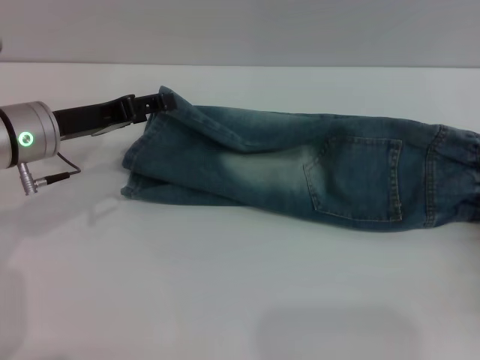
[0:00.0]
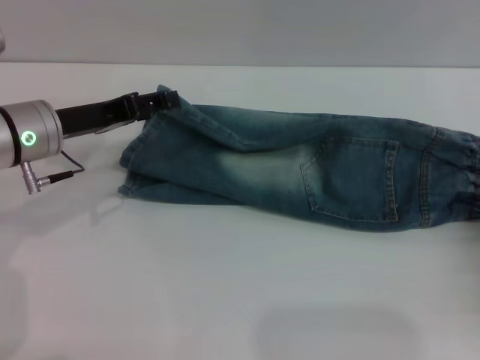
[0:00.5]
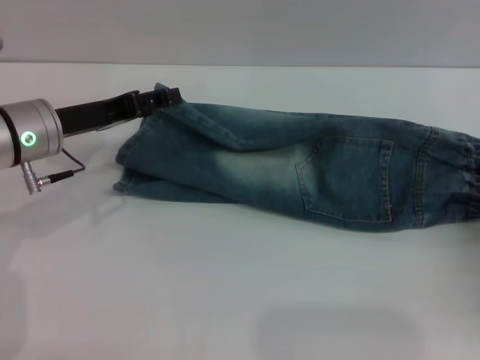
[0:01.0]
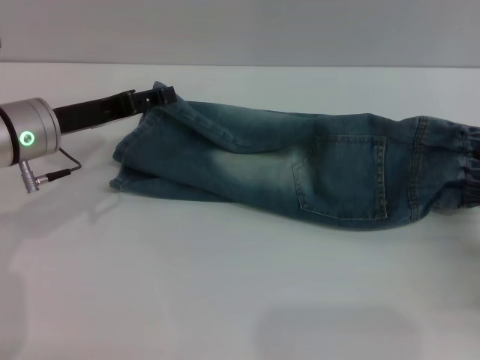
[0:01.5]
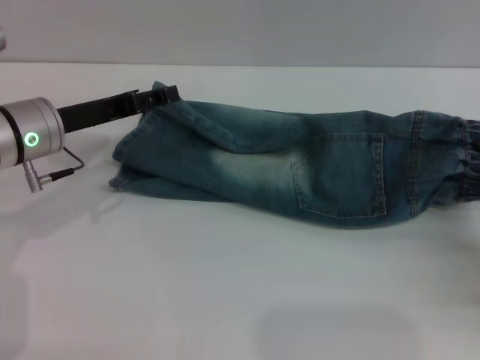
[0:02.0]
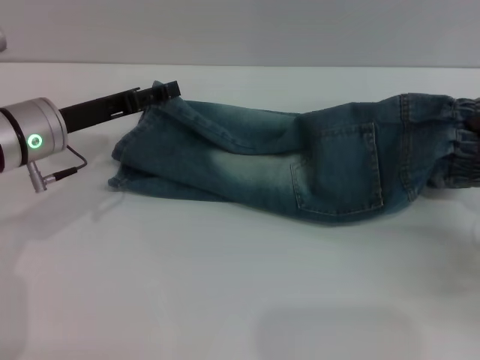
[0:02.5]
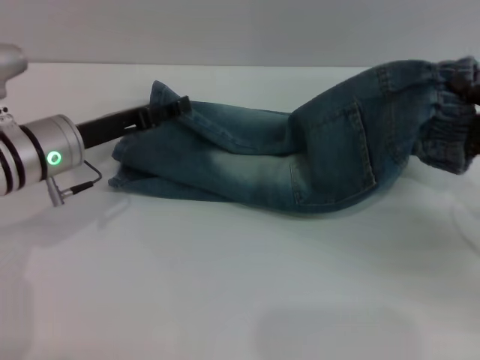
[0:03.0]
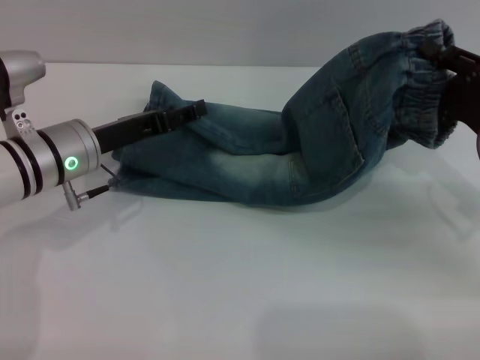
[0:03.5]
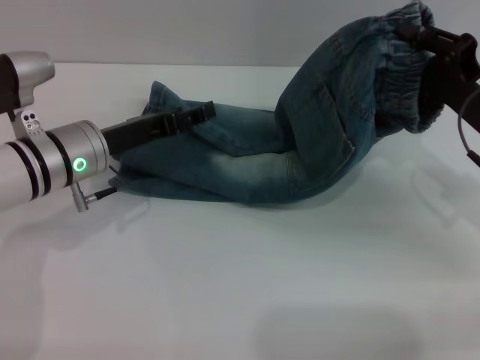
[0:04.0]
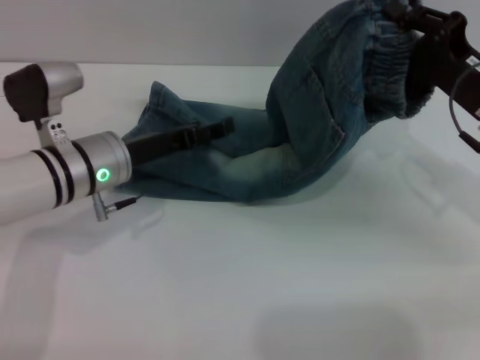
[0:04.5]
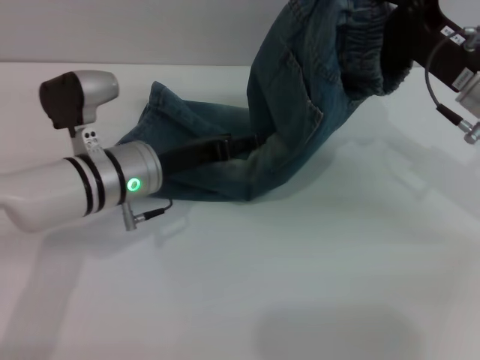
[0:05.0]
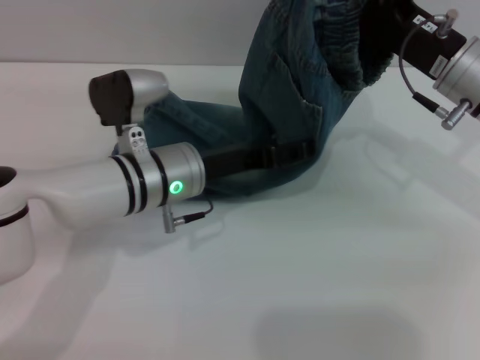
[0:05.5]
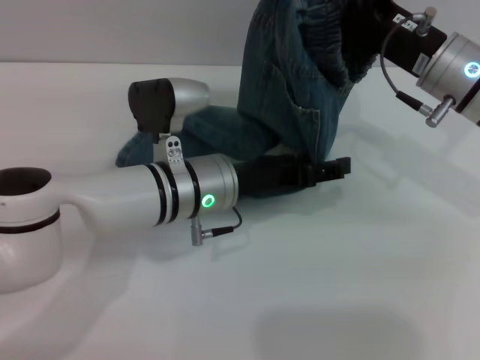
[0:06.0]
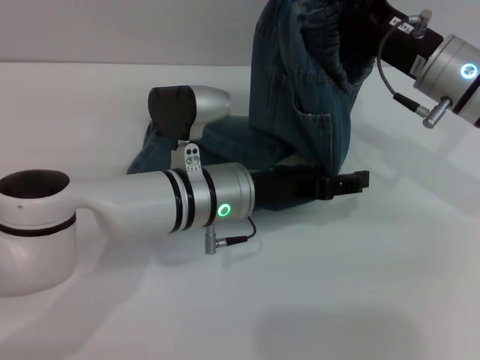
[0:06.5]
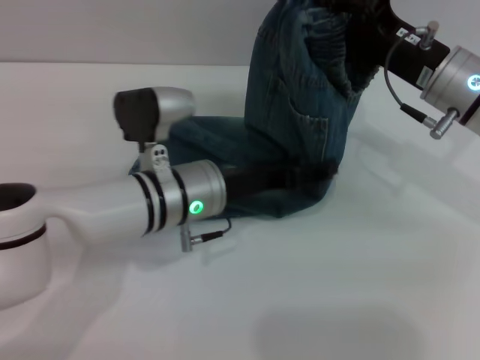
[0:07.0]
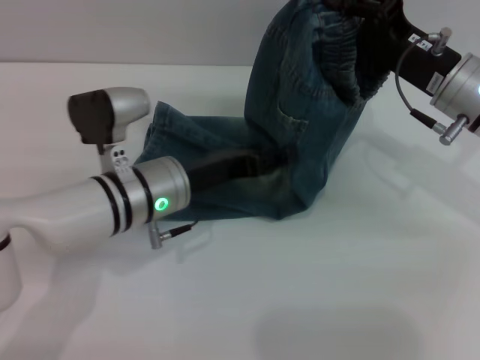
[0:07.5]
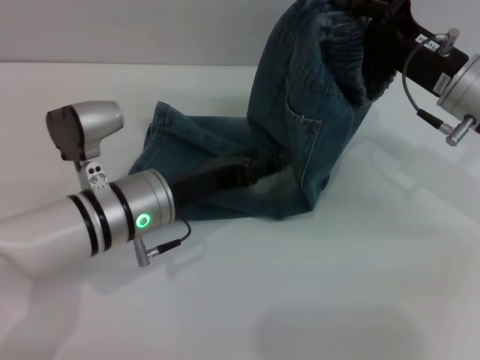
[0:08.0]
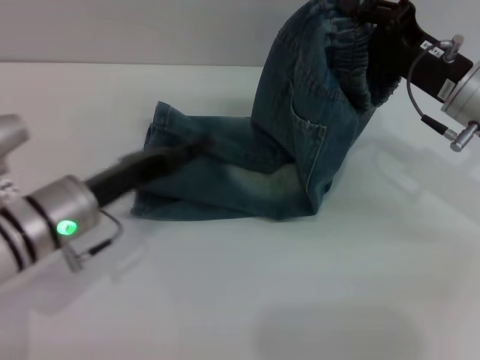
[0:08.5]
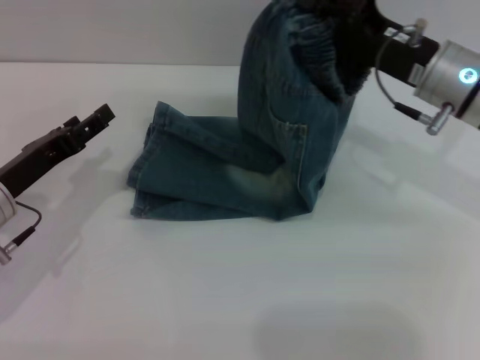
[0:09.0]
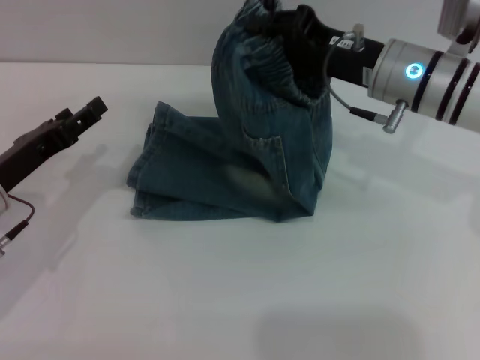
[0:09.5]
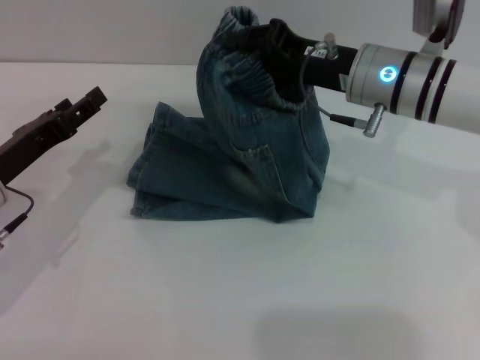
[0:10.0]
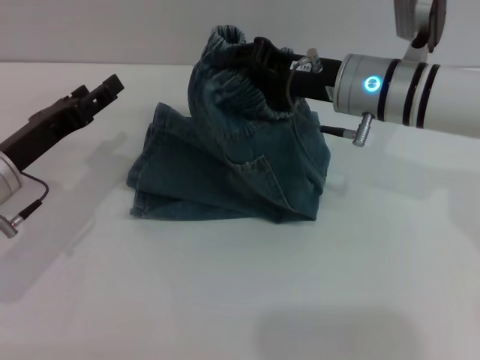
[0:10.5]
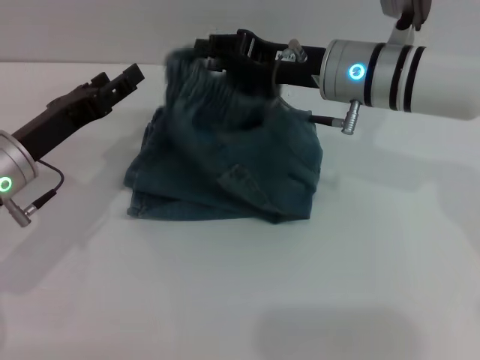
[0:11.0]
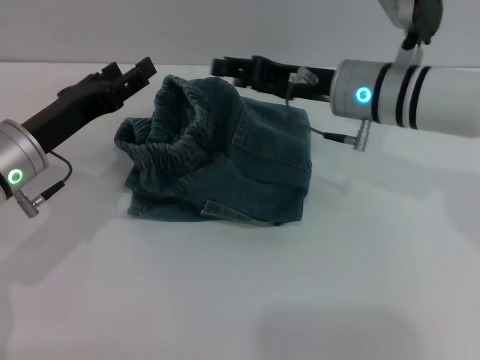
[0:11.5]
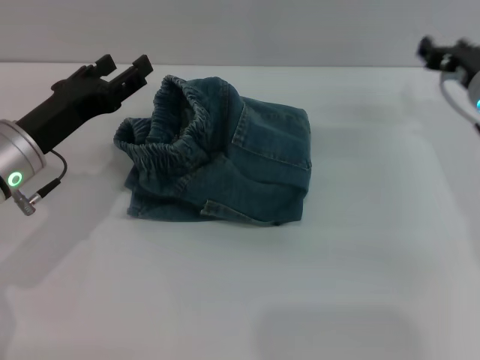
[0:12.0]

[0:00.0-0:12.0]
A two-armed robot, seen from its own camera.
Step, 0:00.0 to 0:12.0: Fold the pants from right to left with the right gripper.
0:00.0 to 0:02.0: The right gripper closes up.
0:02.0 to 0:04.0: The right gripper travels forward, upward and to the left by about 15 cm.
0:04.0 to 0:06.0: The left gripper goes about 10 cm to the right. The right gripper goes approximately 10 cm to the left and forward.
0:06.0 to 0:08.0: The left gripper moves to the left, about 5 cm.
0:08.0 to 0:10.0: The right gripper shifts about 10 cm to the left. Meanwhile the left gripper heads to the left, covering roughly 15 cm.
0:10.0 to 0:12.0: The right gripper is displaced to the right by approximately 10 cm, and opens up.

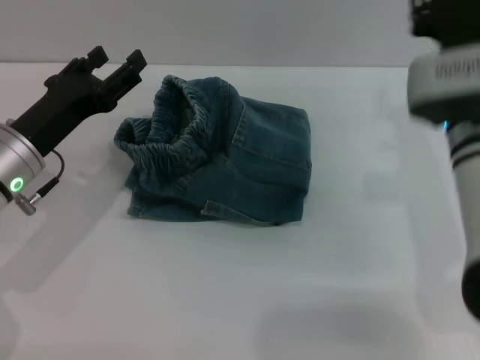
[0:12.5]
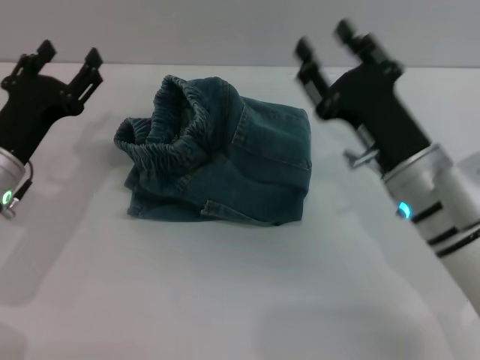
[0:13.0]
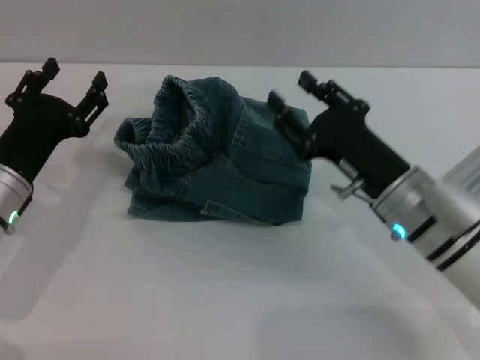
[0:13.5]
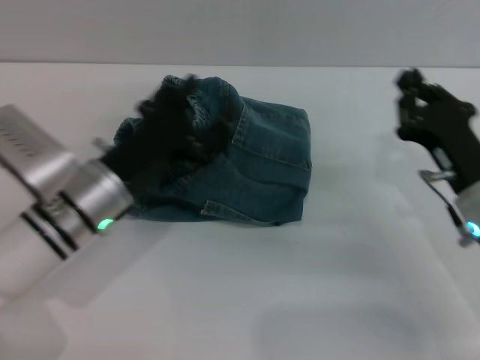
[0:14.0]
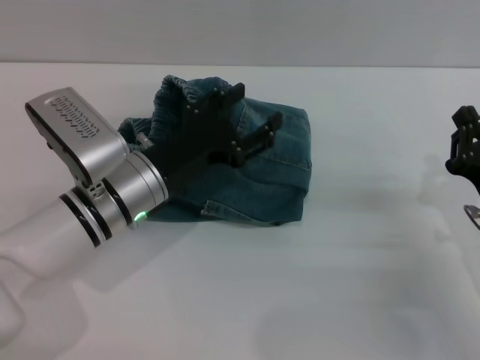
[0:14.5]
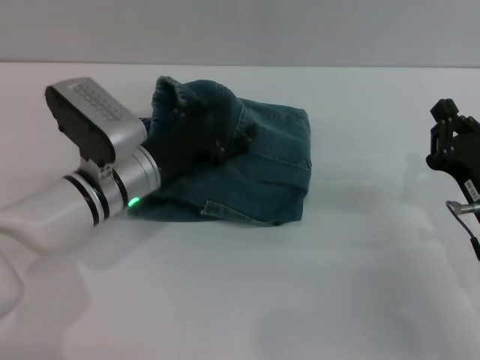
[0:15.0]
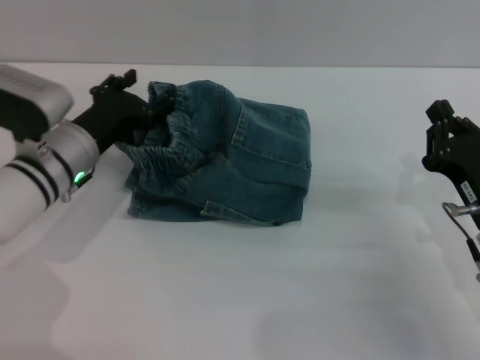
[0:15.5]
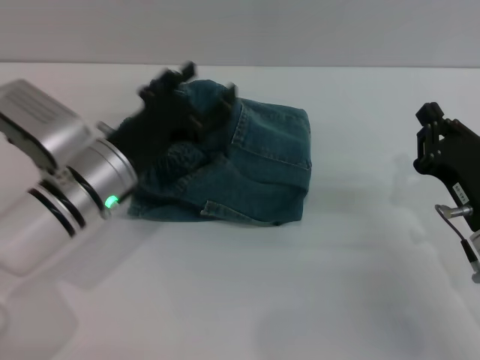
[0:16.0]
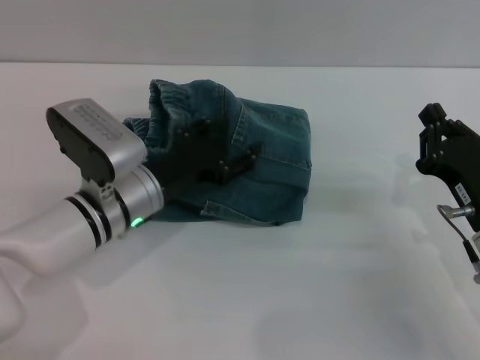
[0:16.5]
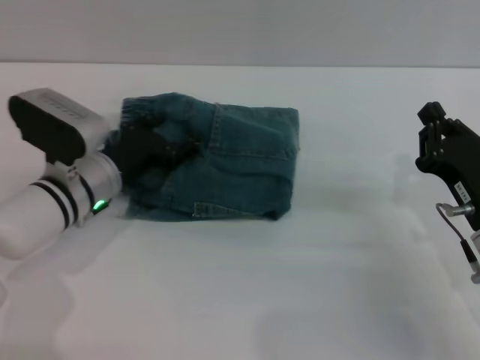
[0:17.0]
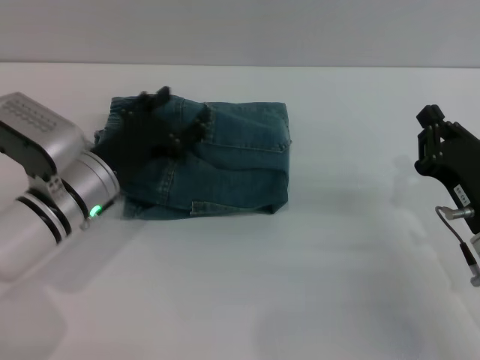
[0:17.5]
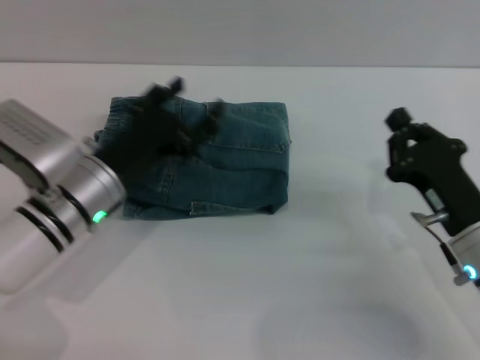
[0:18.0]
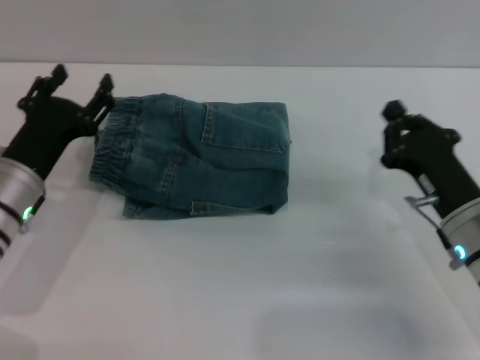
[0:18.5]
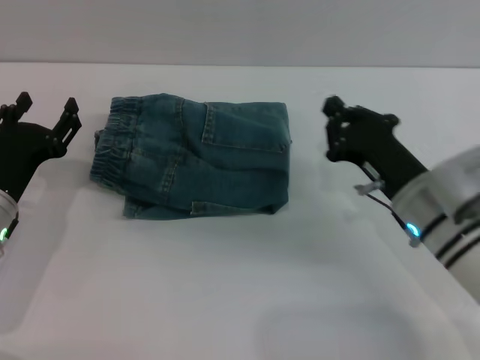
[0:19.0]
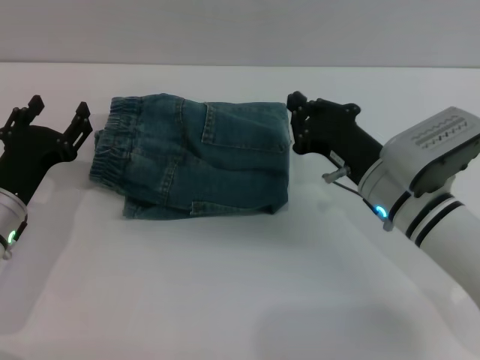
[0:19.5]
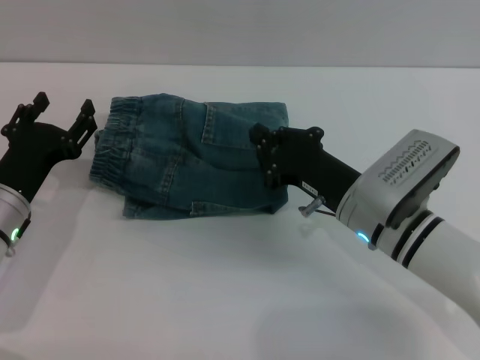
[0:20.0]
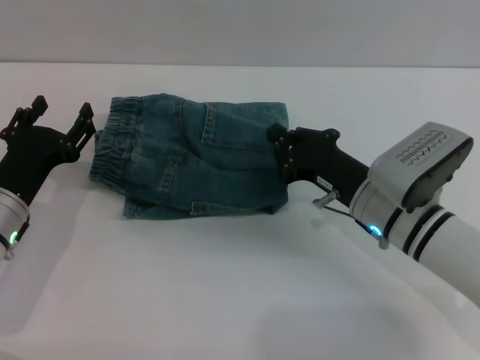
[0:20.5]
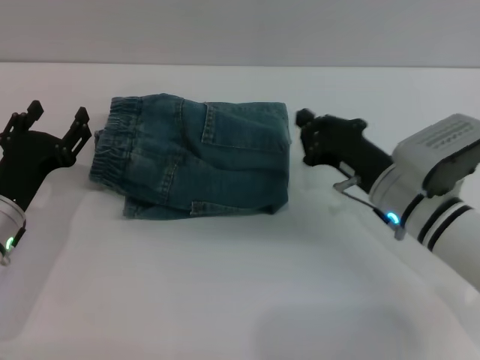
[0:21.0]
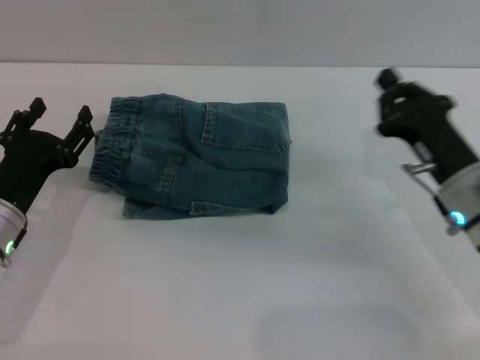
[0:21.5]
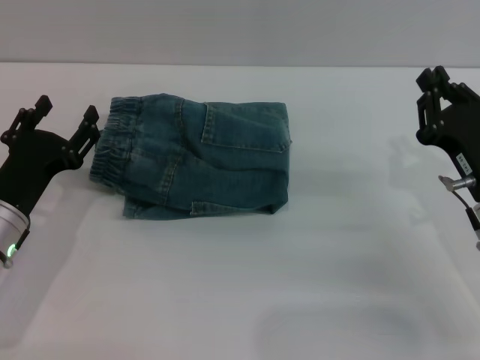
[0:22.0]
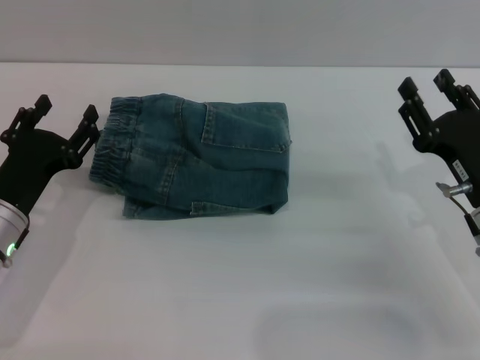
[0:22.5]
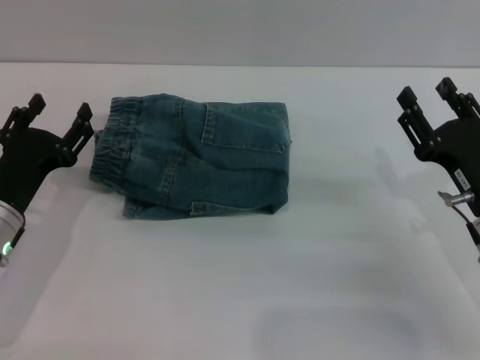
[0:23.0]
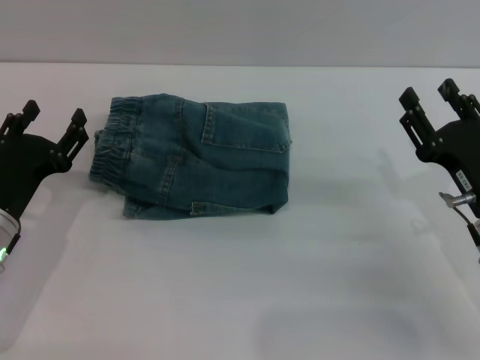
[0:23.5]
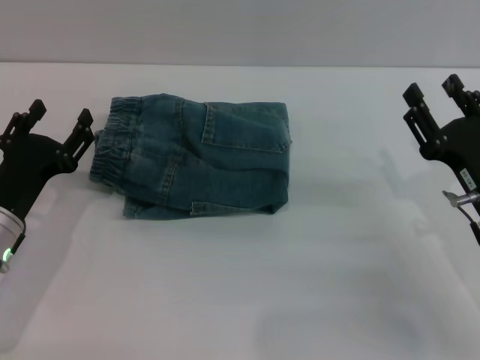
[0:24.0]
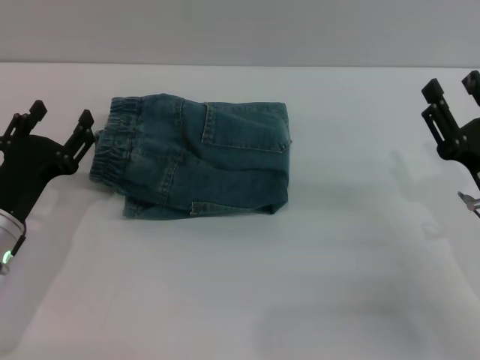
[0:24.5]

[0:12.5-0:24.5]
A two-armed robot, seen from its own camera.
0:12.5 to 0:14.5: The left gripper moves to the right, approximately 10 cm. The right gripper heads backward, downward and to the right, covering roughly 15 cm, and closes up.
0:16.5 to 0:18.5: The left gripper heads to the left, covering roughly 10 cm.
0:18.5 to 0:20.5: The right gripper goes roughly 5 cm to the left.
0:20.5 to 0:22.5: The right gripper heads to the right, covering roughly 10 cm, and opens up.
0:22.5 to 0:24.5: The grippers move only a little.

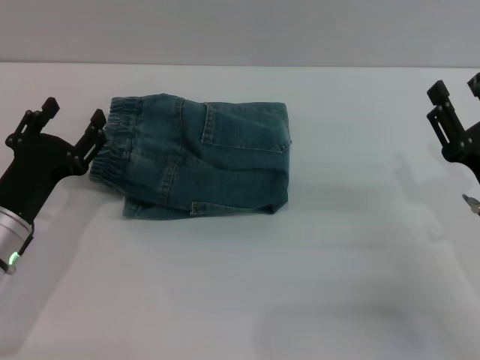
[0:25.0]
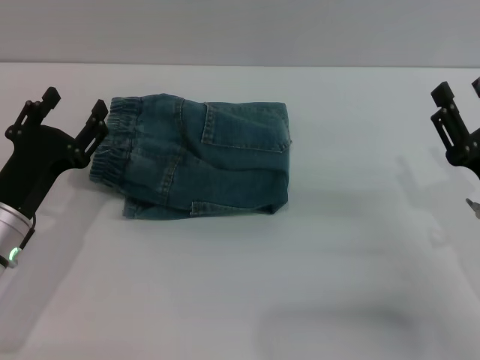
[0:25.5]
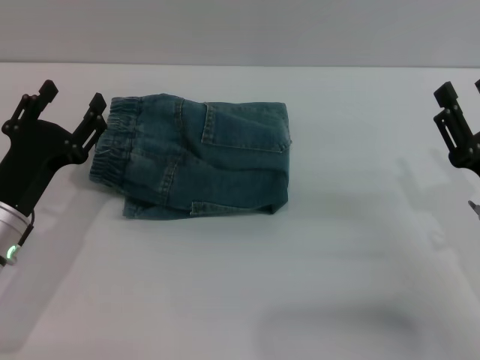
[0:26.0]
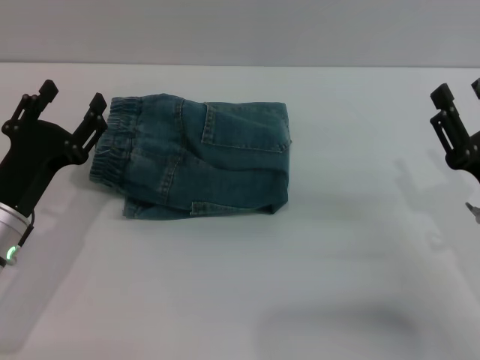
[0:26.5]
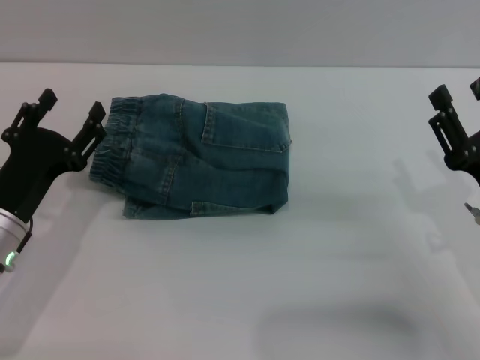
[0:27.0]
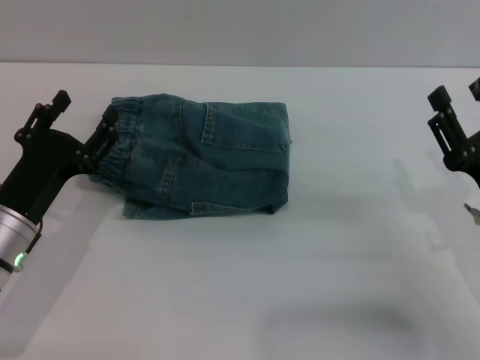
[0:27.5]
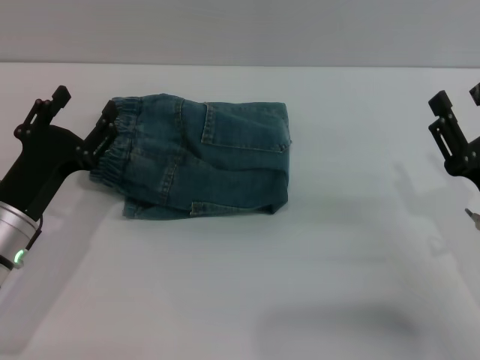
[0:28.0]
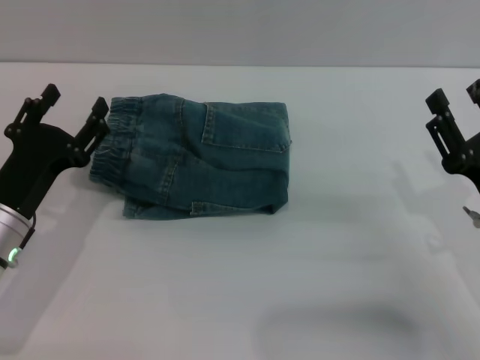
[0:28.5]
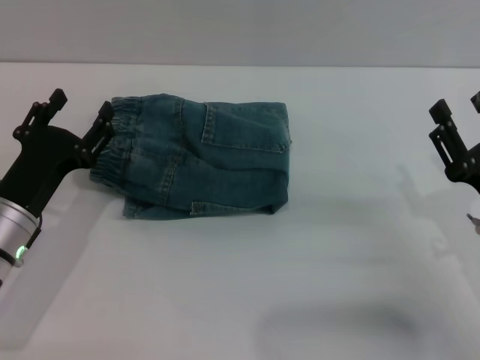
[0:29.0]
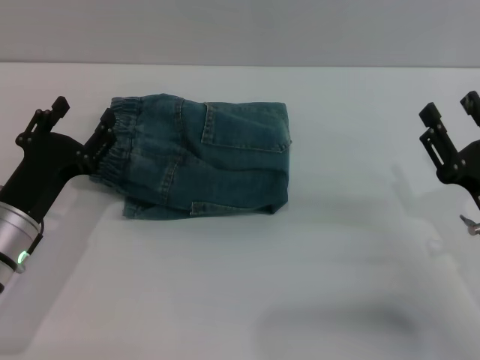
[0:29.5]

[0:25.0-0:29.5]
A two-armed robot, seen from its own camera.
0:25.0 to 0:29.5: The grippers make only small movements.
